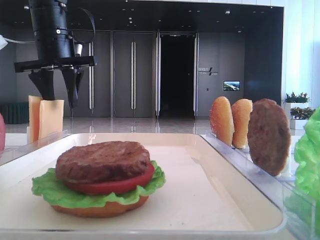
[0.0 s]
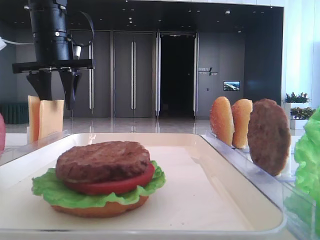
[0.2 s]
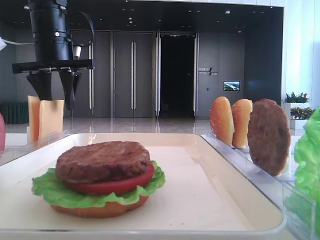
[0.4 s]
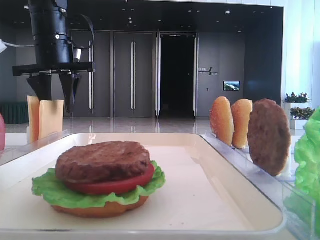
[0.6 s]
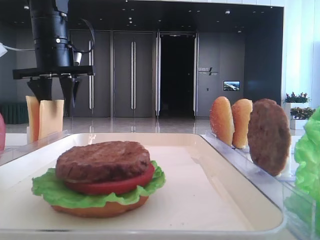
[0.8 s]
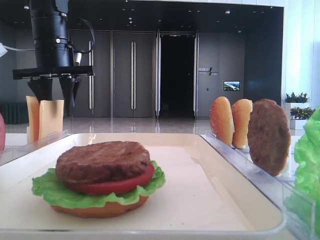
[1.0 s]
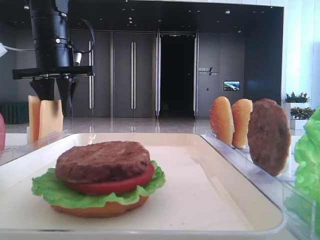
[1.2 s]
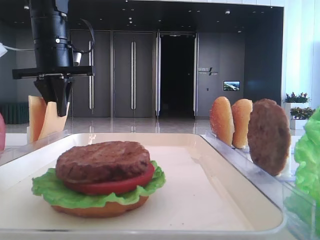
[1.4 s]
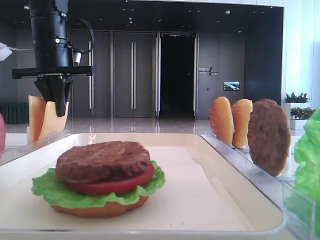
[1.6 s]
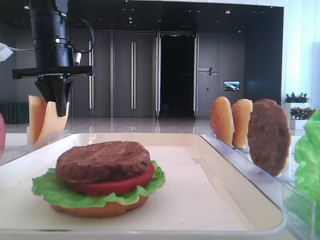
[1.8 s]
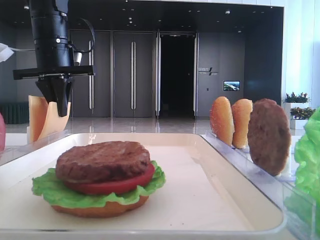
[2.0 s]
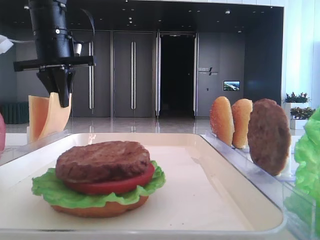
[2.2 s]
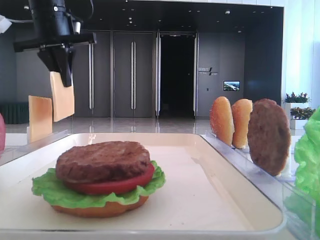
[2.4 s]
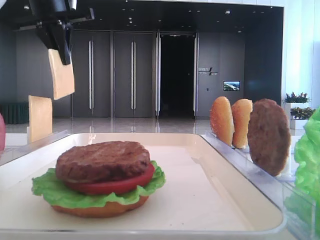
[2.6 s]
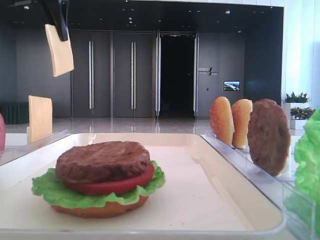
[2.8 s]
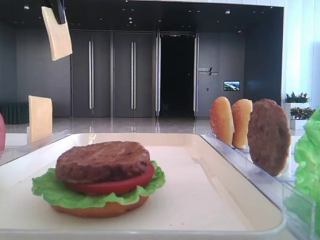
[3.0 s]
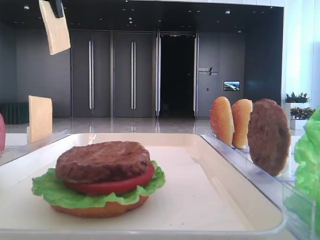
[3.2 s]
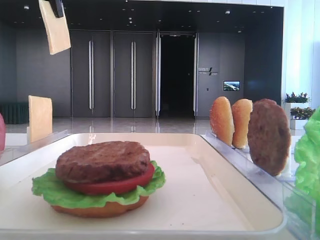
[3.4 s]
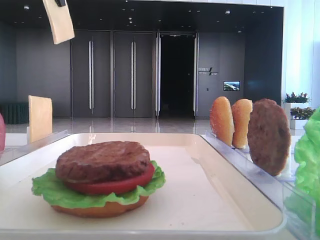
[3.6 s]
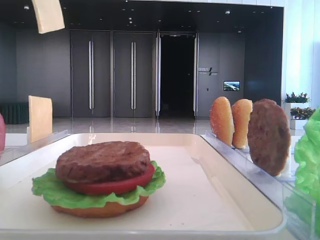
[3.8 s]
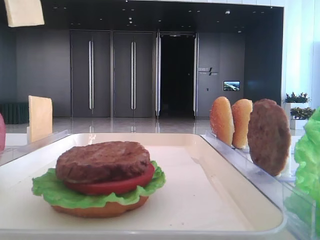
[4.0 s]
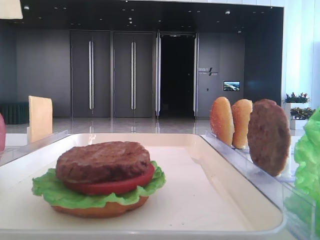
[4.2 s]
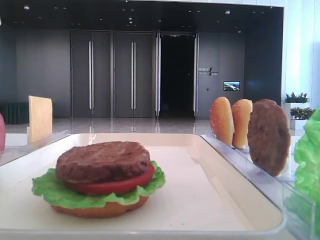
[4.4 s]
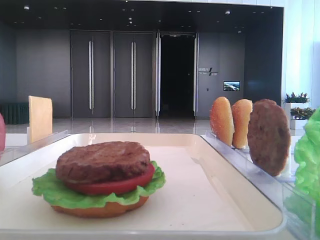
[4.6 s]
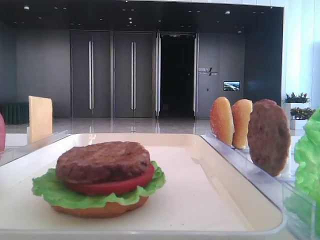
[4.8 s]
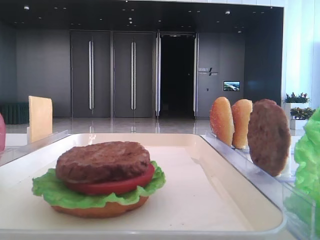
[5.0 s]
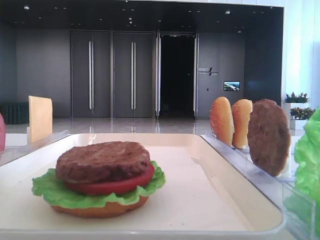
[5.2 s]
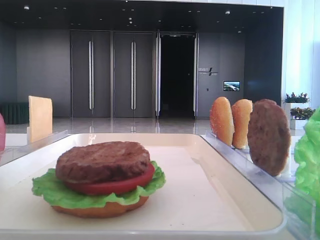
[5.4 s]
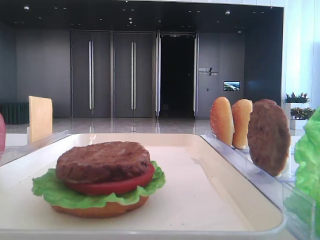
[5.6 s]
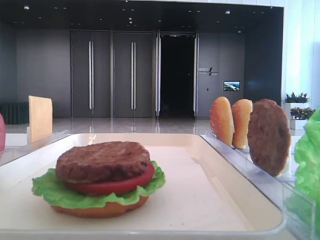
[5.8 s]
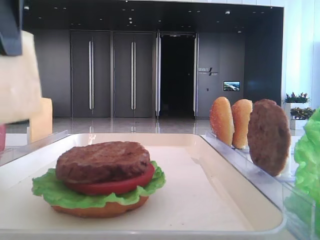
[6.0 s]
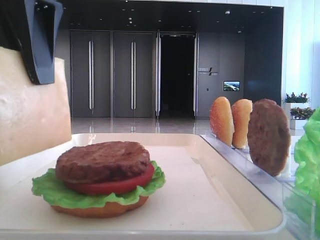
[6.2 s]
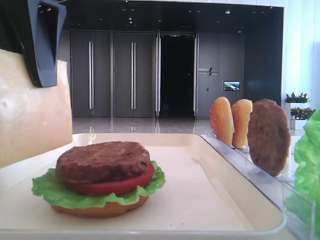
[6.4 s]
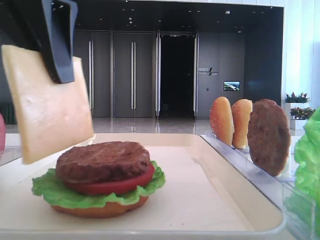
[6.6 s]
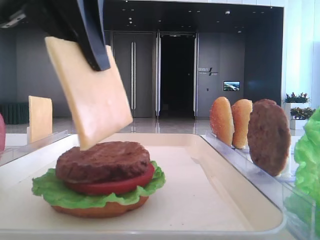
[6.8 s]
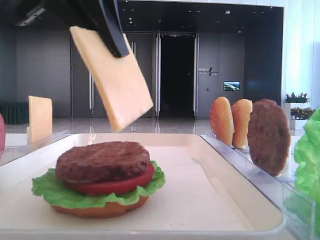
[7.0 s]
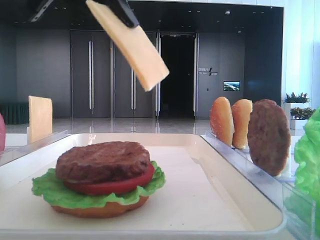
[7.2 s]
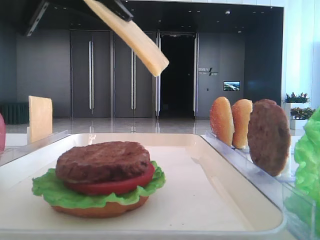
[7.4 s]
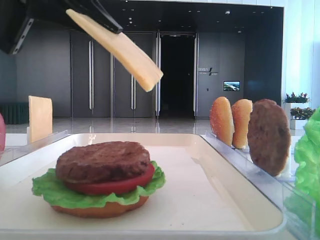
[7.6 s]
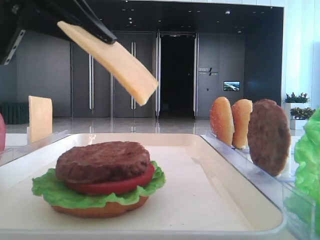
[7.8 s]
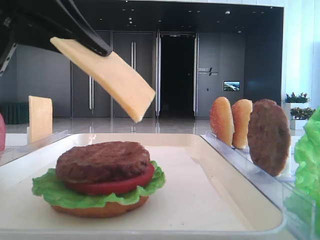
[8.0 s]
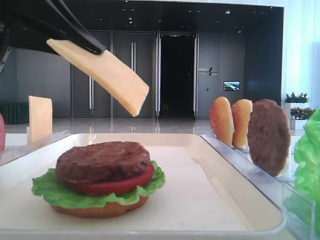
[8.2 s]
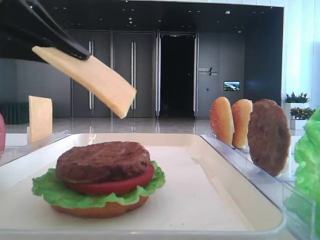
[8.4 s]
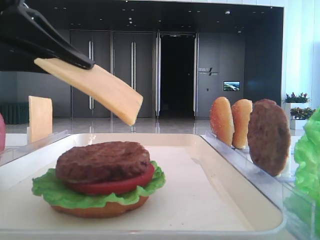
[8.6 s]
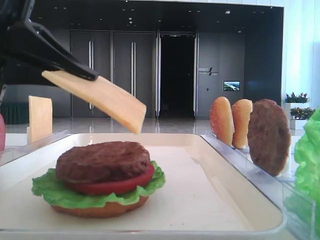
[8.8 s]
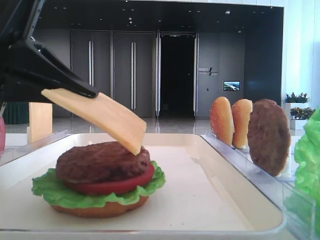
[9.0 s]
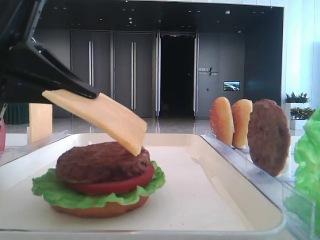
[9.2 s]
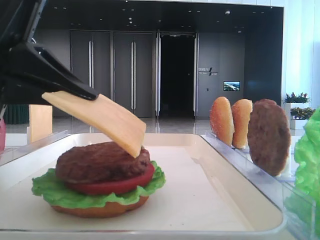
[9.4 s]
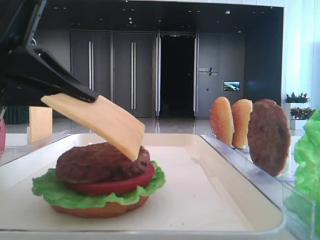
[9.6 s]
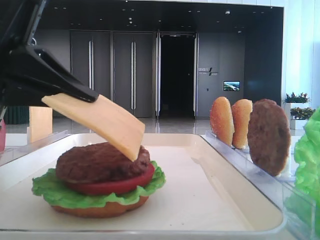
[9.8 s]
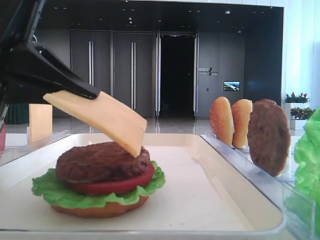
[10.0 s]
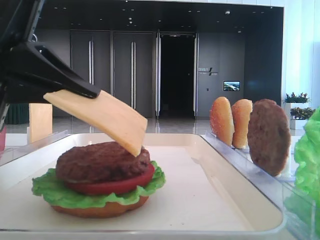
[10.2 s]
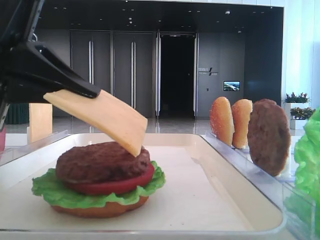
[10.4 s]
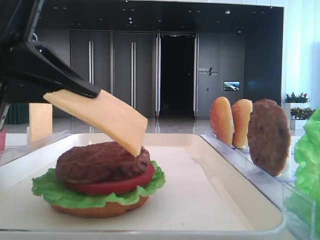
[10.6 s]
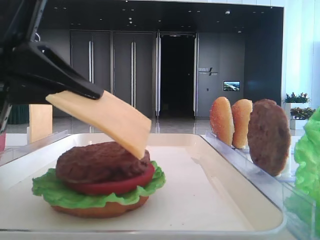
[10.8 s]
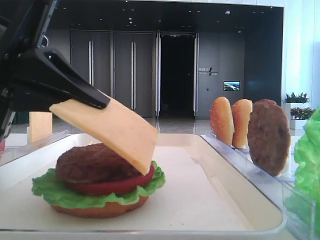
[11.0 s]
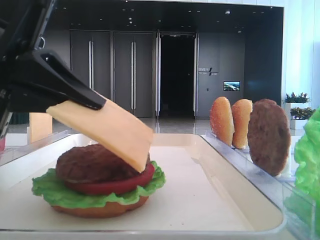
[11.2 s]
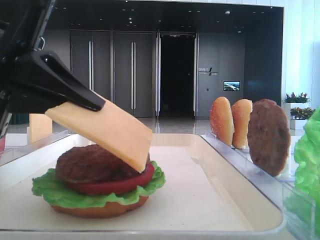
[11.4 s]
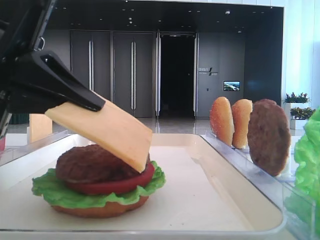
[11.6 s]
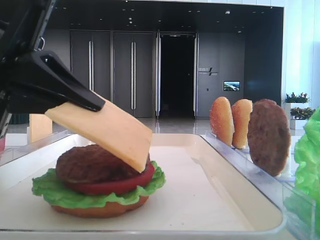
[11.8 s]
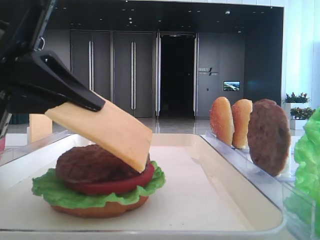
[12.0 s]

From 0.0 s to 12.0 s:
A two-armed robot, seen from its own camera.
From 0.0 s to 1.6 s: The left gripper closes its fingers.
From 1.6 s to 3.0 s: The left gripper moves upward, some 15 cm.
From 3.0 s to 4.4 s: The left gripper shifts some 15 cm backward.
From 4.4 s to 6.0 s: The left gripper heads downward and to the right, covering about 15 cm.
From 7.6 s to 9.0 s: The left gripper heads downward, covering about 10 cm.
From 9.0 s to 10.4 s: Both grippers stay about where they are.
From 10.4 s to 12.0 s: Neither gripper changes place.

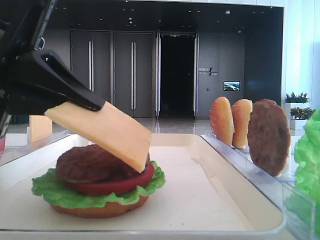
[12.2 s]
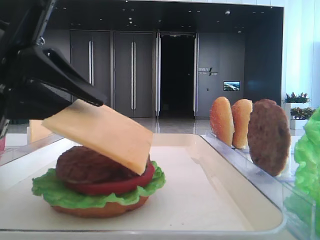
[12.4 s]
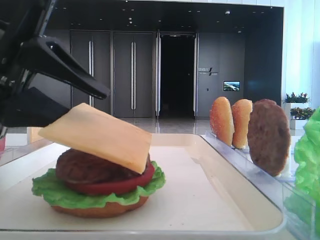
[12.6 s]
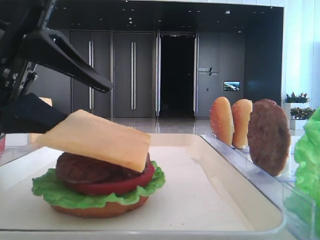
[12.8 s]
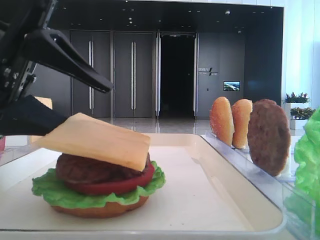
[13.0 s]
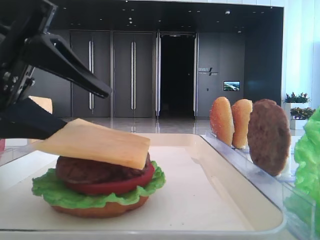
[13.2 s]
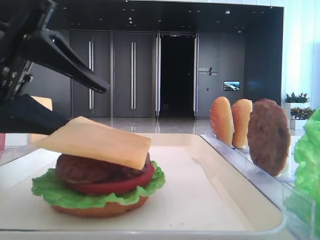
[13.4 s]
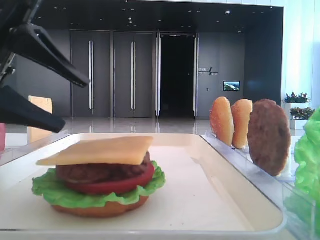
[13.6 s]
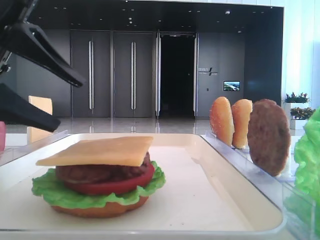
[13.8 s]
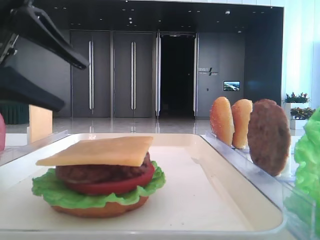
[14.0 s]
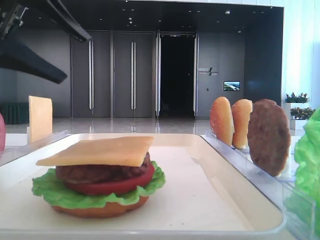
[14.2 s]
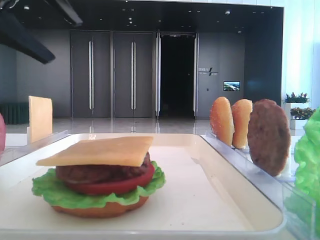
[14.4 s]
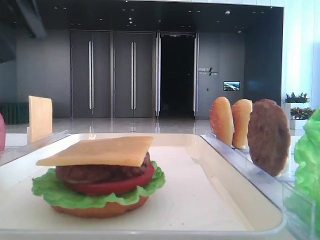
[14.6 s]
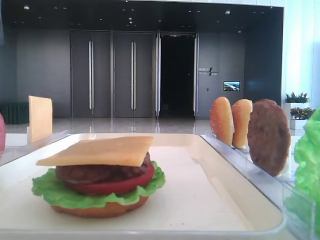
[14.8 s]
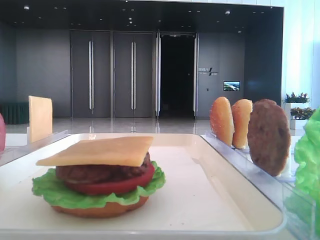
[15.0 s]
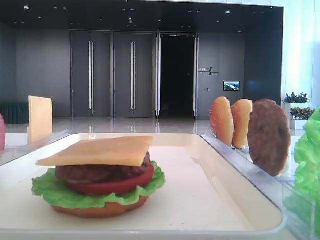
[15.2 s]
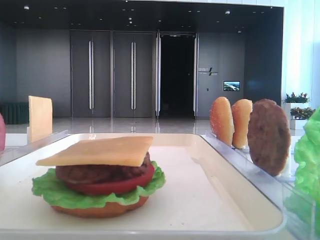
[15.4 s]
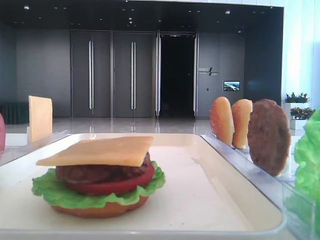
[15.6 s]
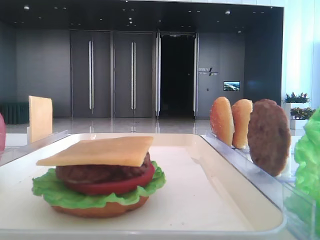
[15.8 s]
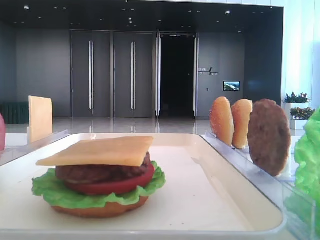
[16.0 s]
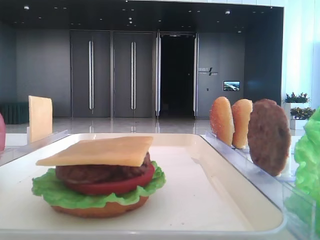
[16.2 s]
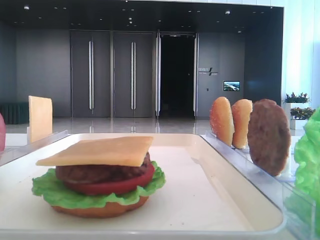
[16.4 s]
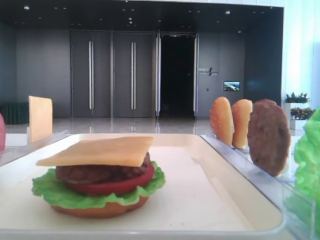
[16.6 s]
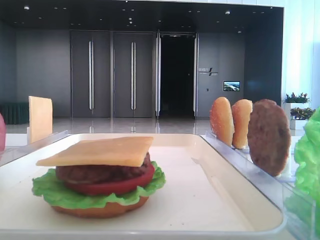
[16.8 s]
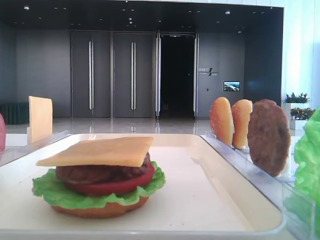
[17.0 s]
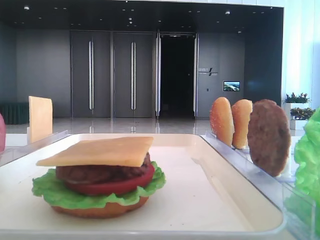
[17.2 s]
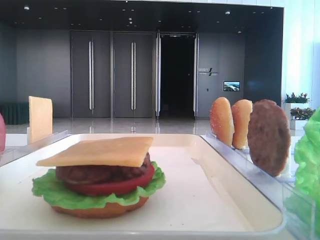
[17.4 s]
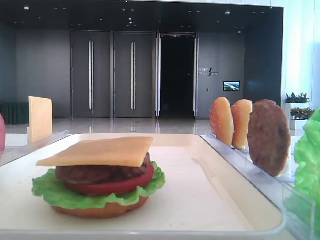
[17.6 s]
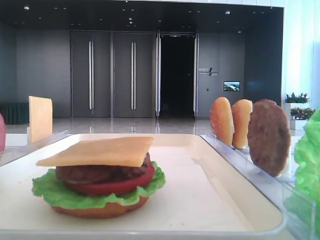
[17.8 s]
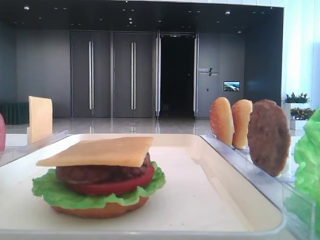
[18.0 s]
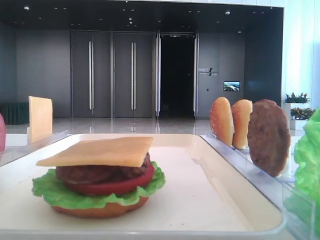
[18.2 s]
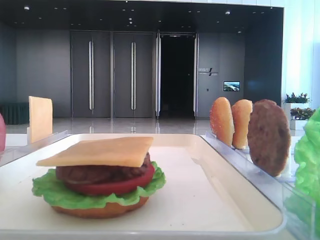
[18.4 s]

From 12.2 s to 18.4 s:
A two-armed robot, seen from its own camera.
From 12.2 s to 13.8 s: The left gripper opens up.
From 13.8 s to 15.4 s: The left gripper shifts some 15 cm upward and to the left.

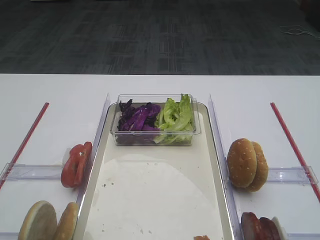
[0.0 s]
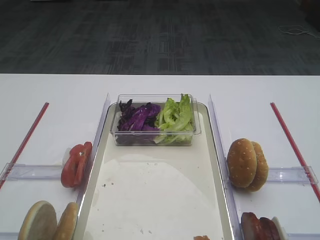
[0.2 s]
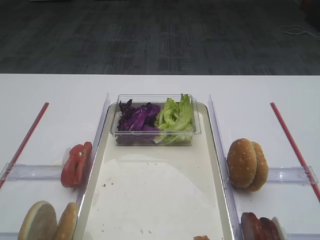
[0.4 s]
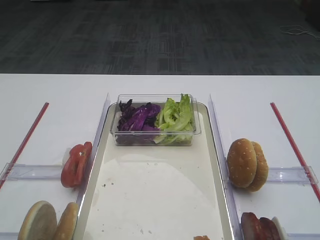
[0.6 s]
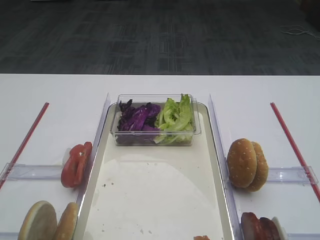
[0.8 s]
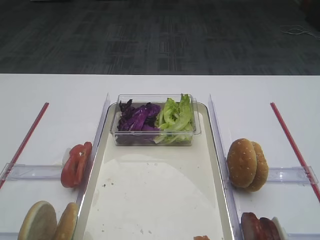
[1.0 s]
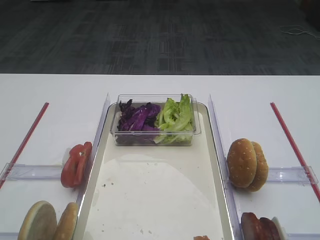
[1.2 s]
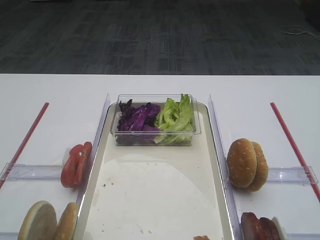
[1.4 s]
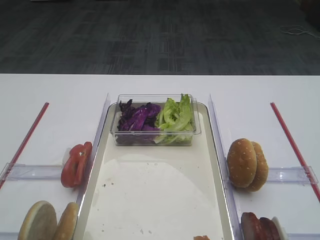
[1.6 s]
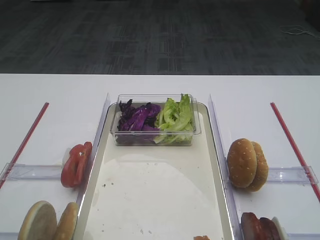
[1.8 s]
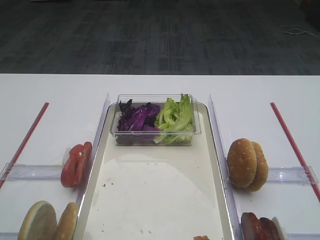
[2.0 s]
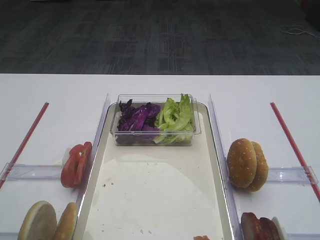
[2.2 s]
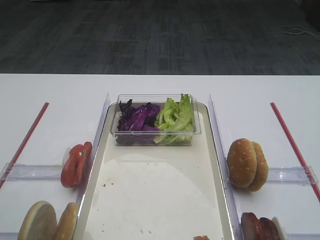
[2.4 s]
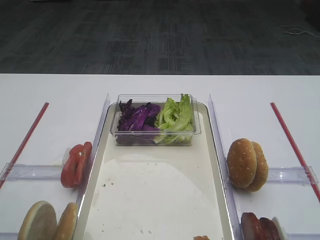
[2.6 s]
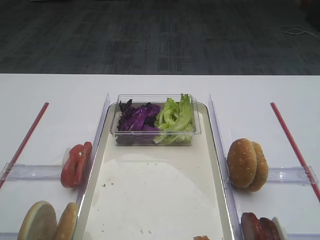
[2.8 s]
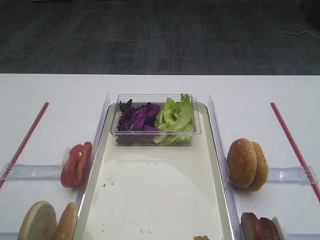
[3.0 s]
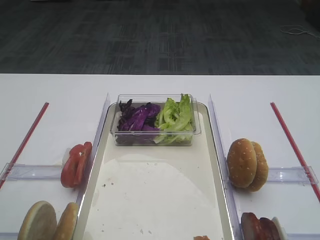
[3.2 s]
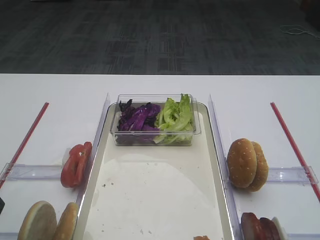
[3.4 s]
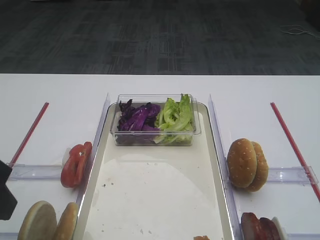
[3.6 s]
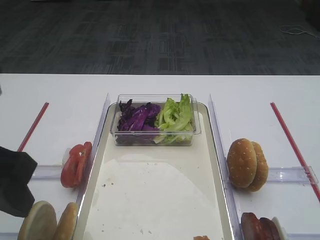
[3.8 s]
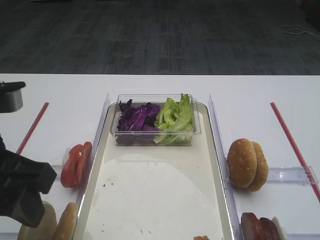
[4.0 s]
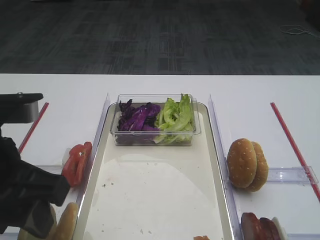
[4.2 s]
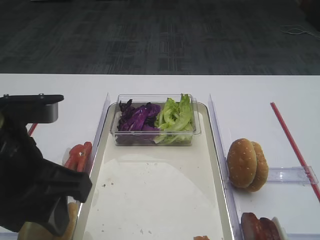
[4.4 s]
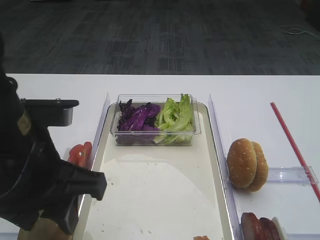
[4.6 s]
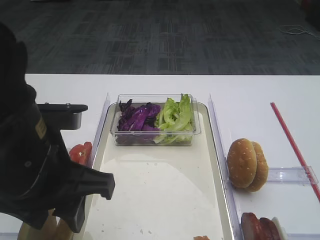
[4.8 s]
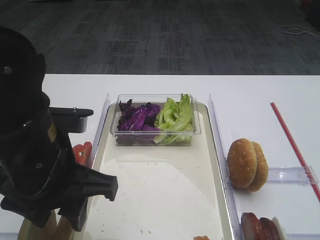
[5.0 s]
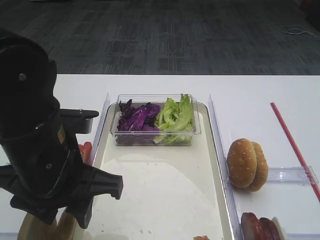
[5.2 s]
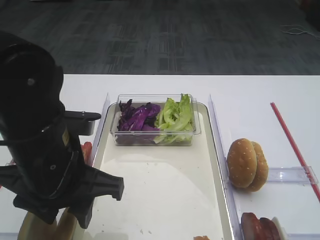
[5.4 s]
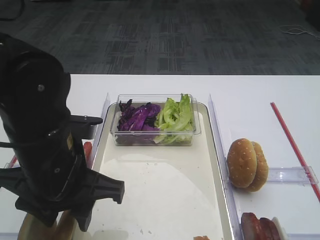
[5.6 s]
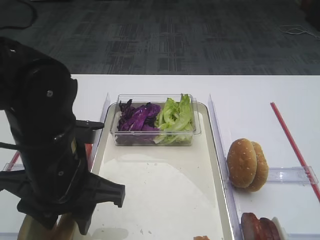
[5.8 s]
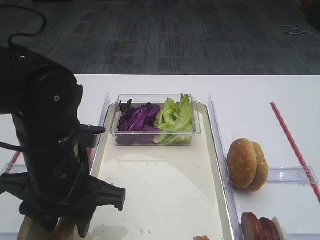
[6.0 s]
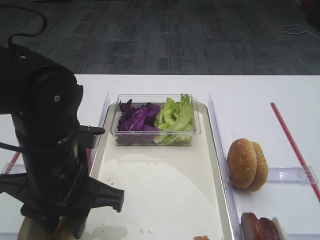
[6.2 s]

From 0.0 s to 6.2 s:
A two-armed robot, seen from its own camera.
From 3.2 s to 4.6 s: The left gripper travels to the right by some 10 cm.
From 4.6 s to 6.2 s: The left gripper goes approximately 5 cm downward, and closes its fingers.
